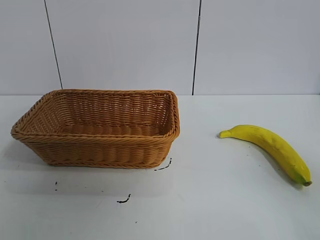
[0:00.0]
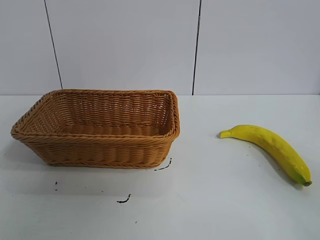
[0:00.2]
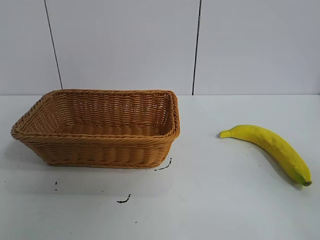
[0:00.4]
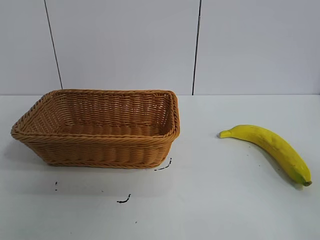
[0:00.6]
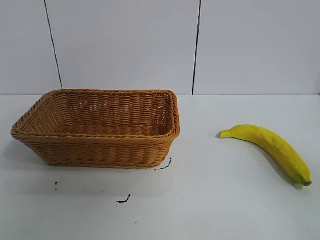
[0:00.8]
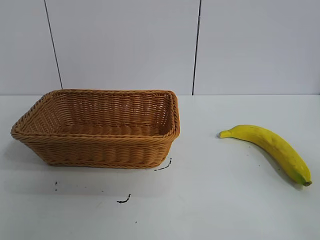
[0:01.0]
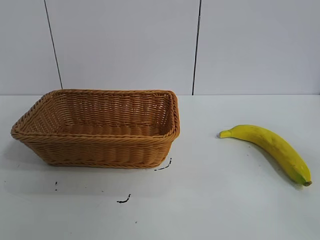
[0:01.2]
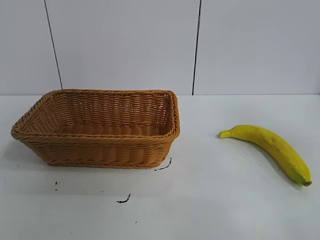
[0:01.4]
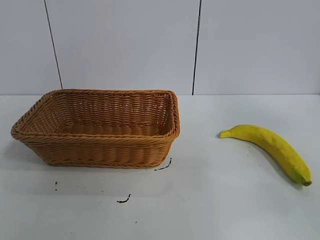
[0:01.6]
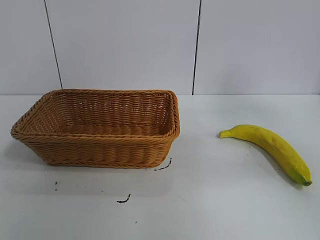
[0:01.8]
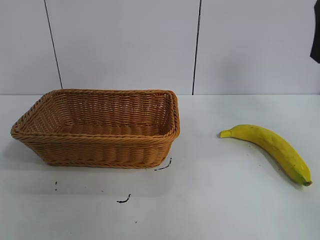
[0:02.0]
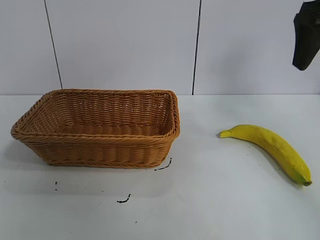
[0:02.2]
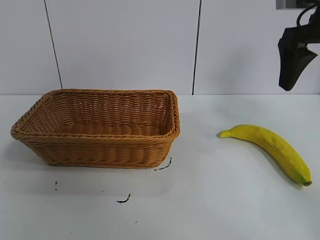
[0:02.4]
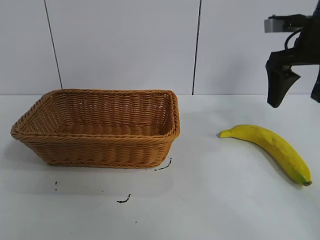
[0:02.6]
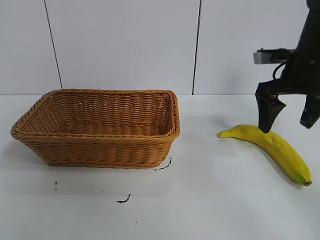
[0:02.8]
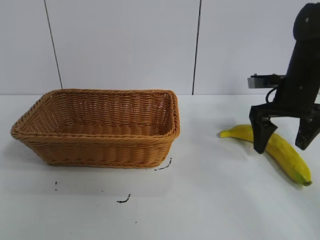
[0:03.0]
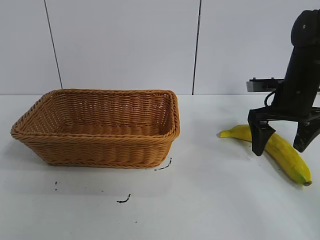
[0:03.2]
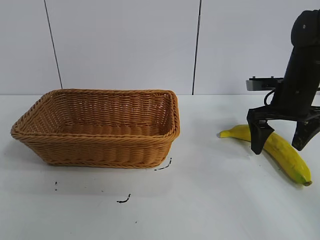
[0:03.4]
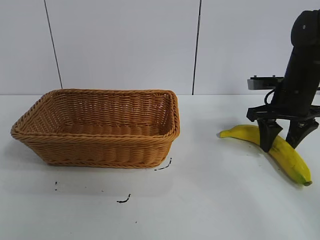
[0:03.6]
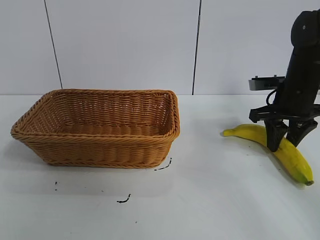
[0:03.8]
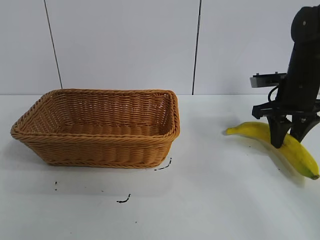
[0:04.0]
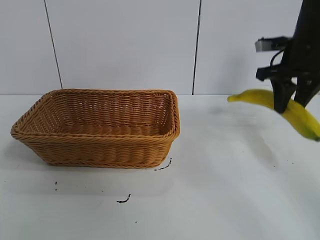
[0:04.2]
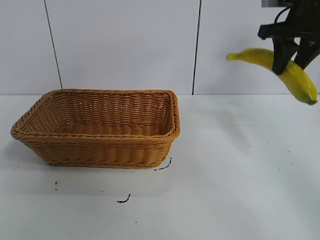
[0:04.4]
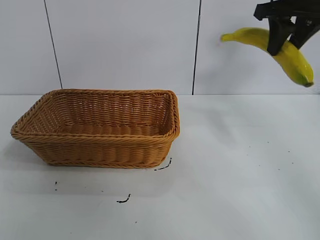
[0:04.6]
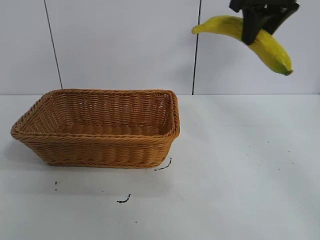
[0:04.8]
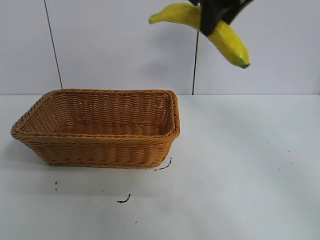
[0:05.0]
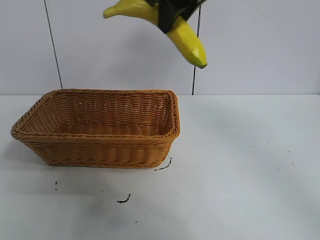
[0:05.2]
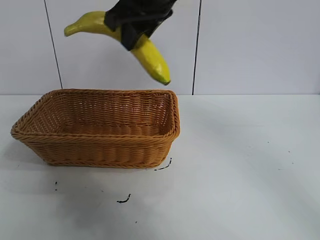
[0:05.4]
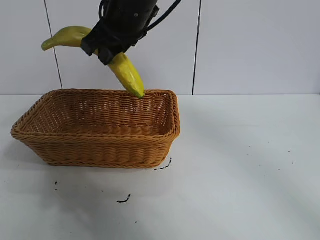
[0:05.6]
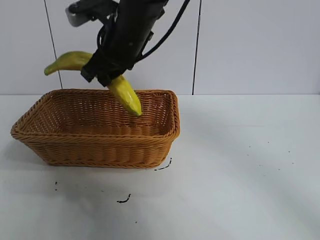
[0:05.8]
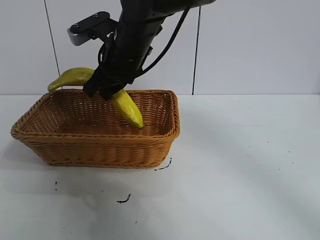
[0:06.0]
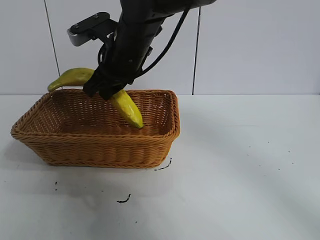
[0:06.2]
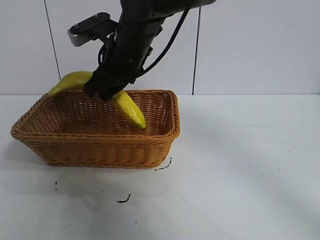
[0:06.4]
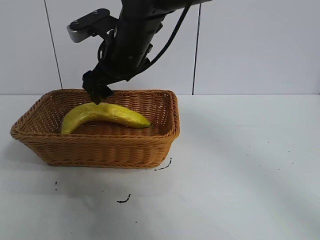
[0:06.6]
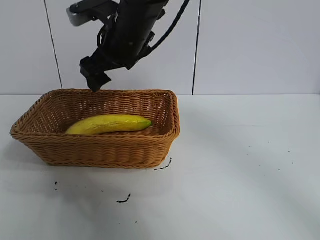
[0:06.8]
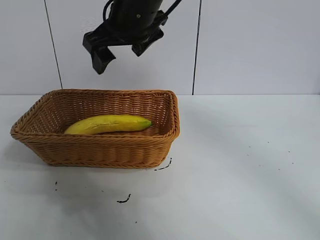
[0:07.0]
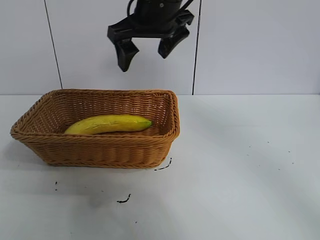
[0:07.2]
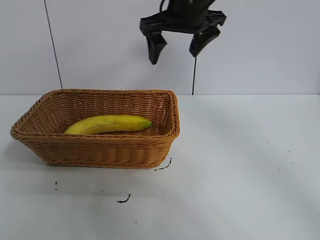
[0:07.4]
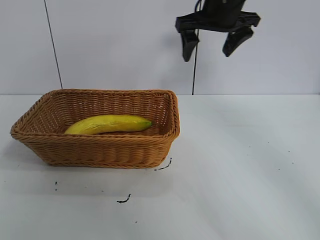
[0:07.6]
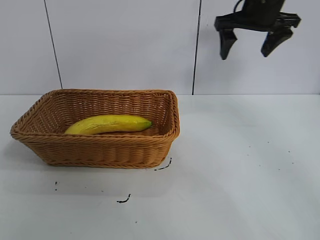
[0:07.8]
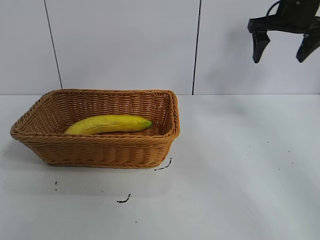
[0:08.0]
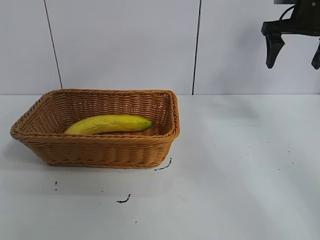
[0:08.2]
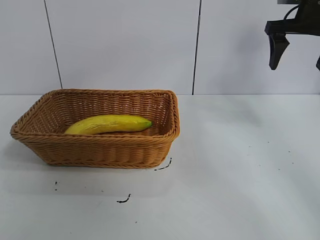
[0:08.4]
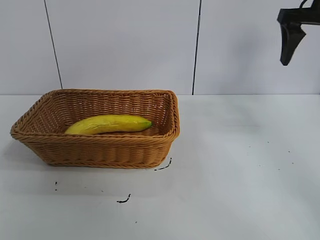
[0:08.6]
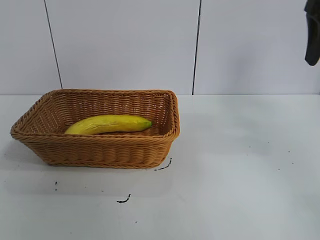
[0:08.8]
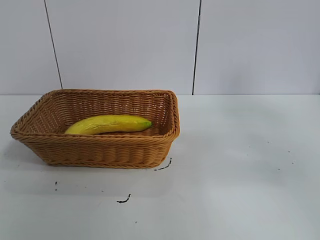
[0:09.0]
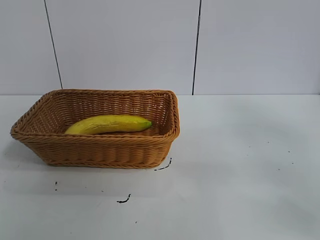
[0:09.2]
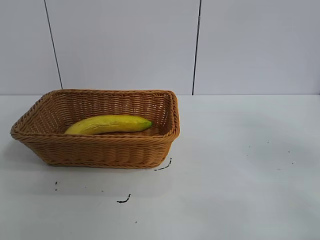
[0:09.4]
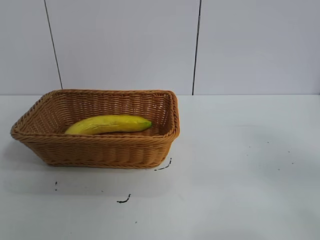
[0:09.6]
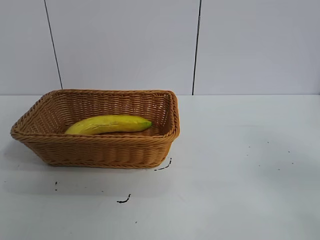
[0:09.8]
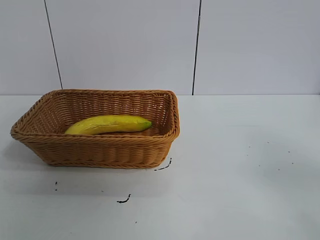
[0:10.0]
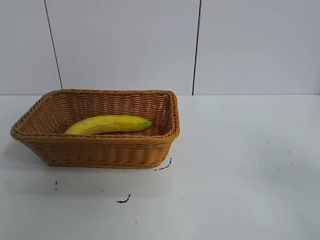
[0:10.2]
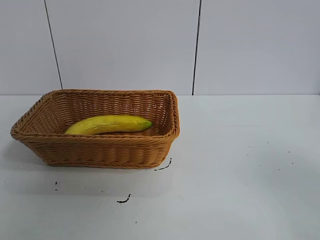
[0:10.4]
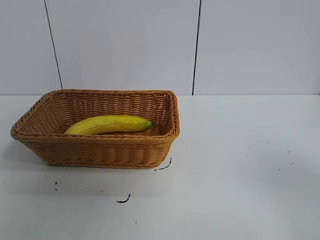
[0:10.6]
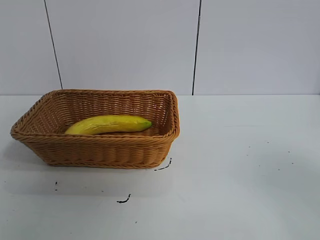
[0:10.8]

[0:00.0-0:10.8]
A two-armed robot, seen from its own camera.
Task of the whole recording: pick up the banana and put it into the basket.
Step, 0:01.0 to 0:03.8: Grasp the banana with right gripper.
Step, 0:04.0 to 0:06.6: Place the banana in the basket with right gripper.

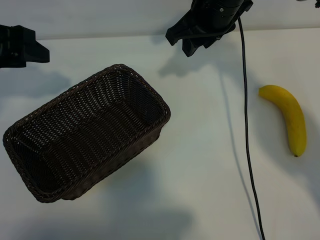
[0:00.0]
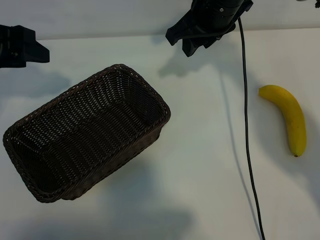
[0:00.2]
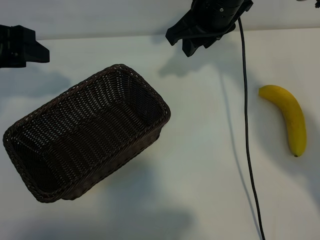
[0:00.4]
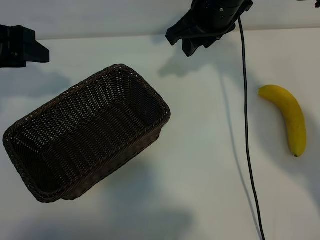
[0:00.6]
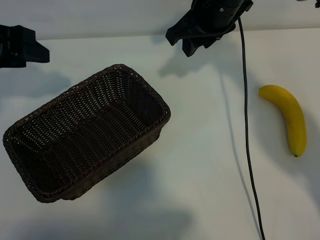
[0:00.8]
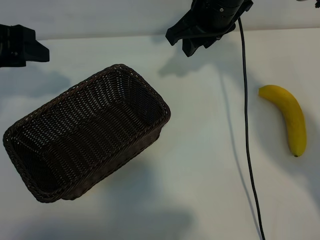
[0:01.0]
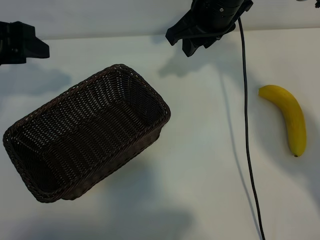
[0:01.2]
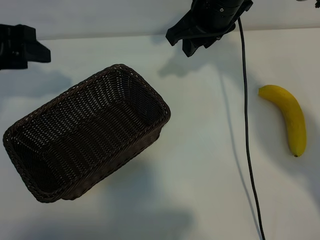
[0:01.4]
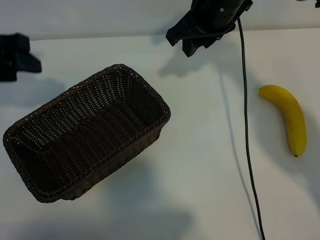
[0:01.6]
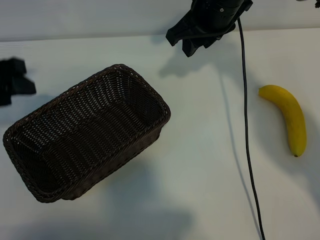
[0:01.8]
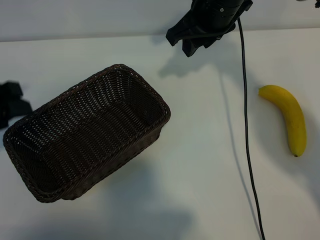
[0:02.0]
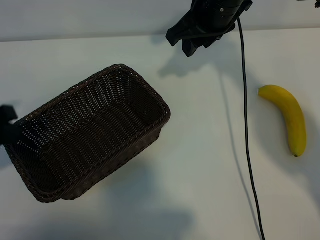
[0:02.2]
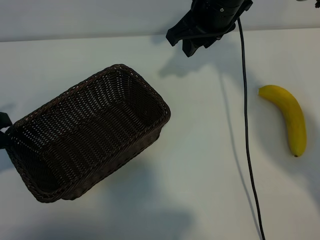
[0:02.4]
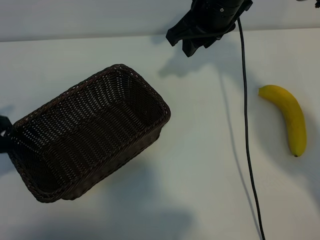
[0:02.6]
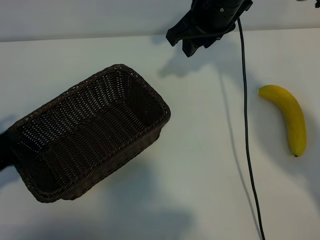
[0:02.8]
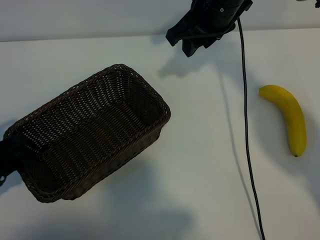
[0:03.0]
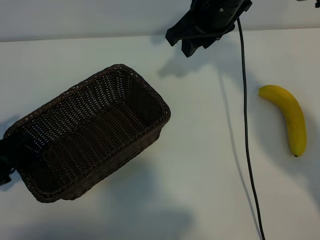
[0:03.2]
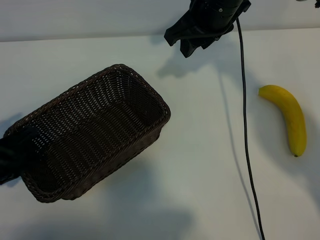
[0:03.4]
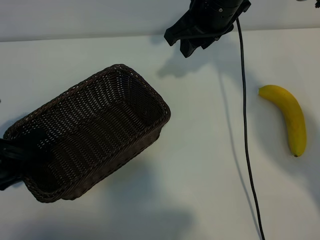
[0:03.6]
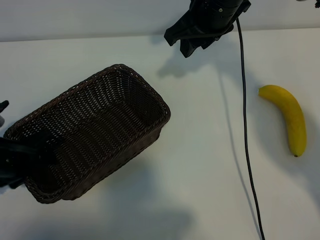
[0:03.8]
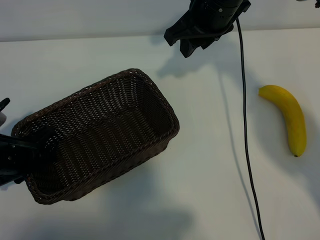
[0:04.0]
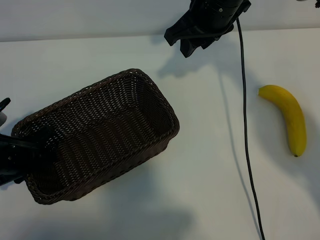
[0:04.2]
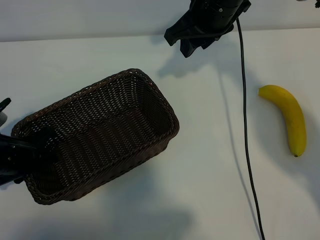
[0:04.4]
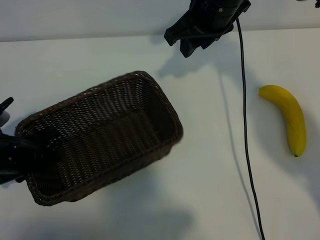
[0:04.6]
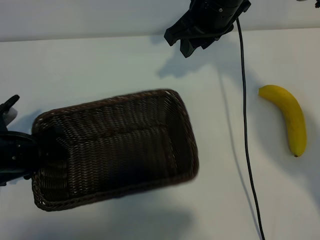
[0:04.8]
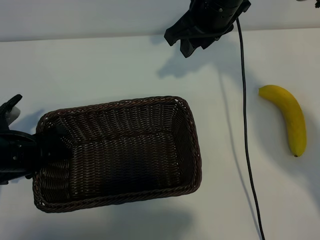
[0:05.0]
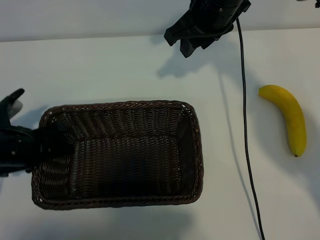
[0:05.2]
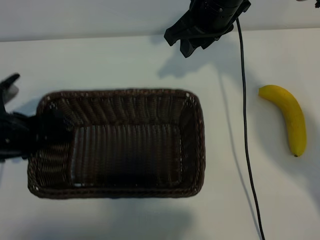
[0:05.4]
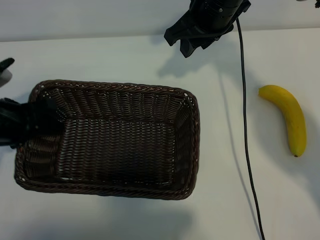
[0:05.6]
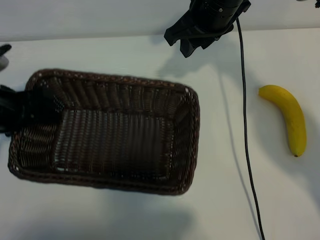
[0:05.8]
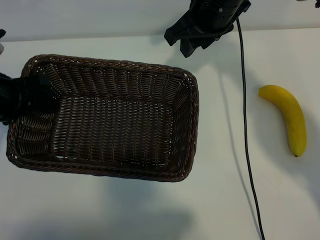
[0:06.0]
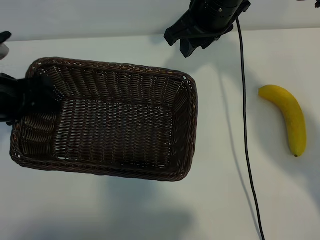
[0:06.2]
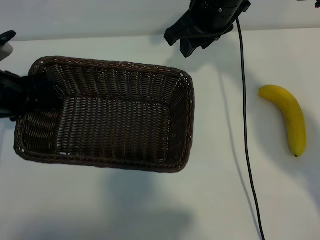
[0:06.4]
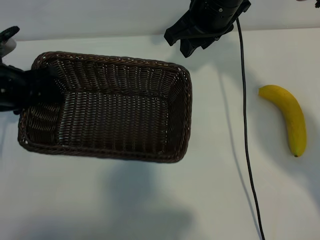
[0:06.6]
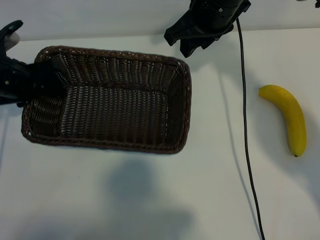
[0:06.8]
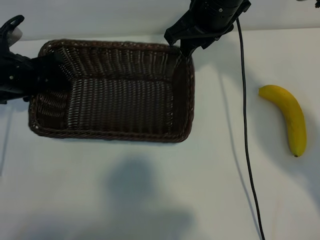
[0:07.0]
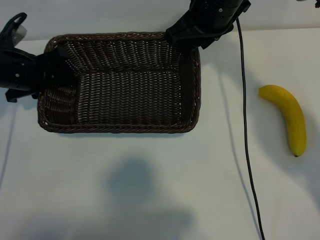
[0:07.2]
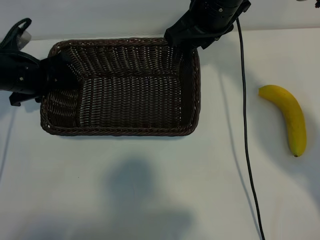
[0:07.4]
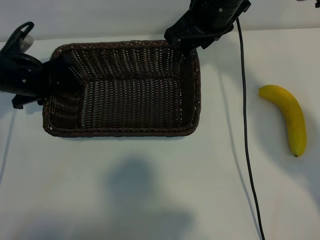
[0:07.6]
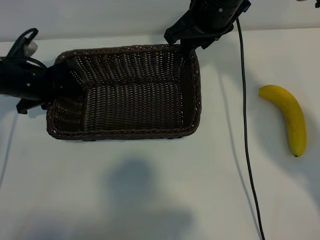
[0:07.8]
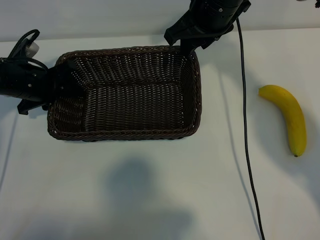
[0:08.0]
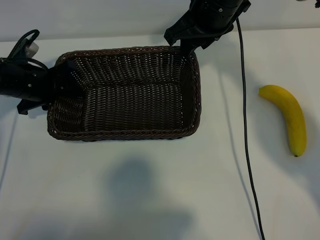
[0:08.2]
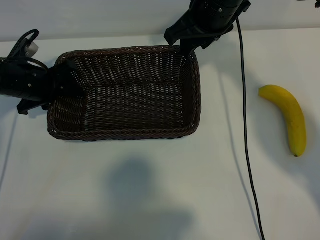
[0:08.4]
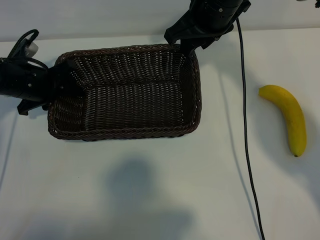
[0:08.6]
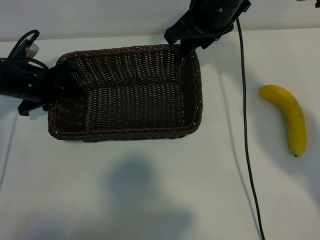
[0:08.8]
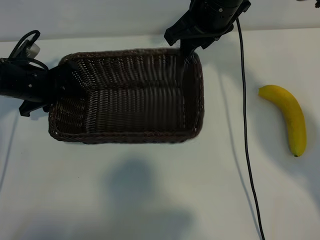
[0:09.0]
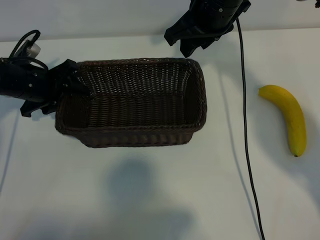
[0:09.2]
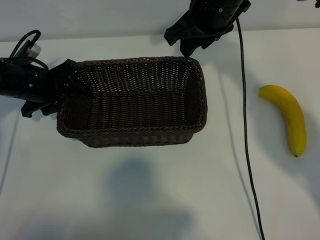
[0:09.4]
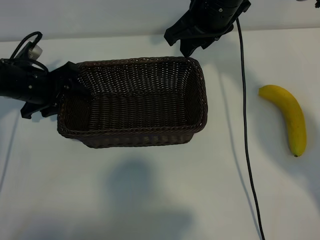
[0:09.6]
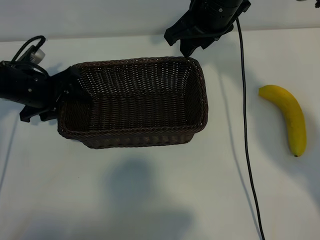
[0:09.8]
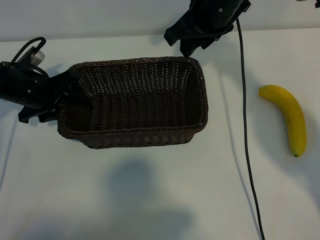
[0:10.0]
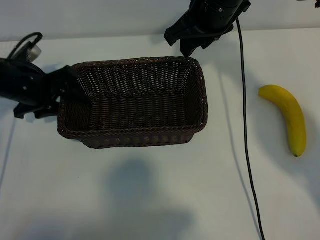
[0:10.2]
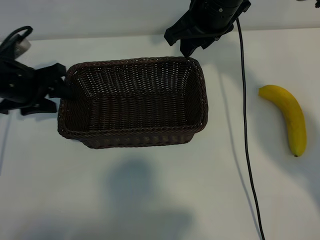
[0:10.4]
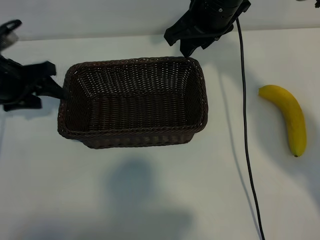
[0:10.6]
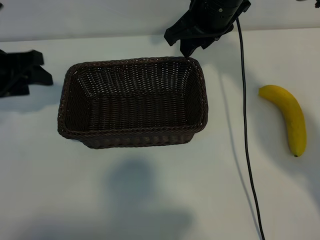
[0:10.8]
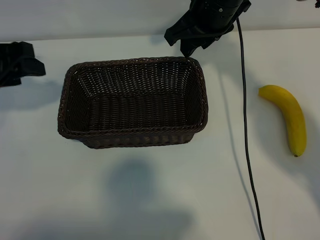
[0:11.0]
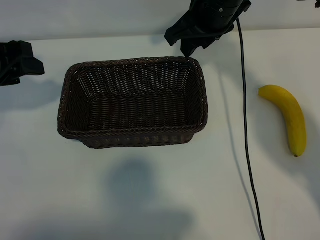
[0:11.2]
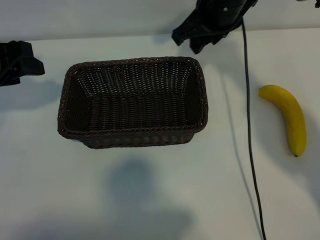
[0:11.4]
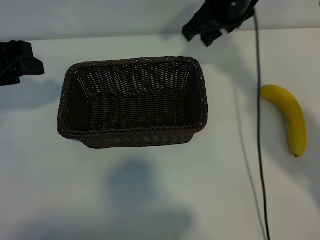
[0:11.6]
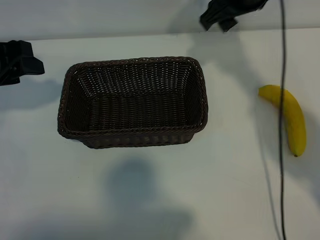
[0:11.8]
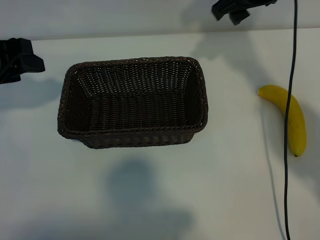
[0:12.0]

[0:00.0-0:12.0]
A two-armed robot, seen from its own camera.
Task of the whole recording: pick up the banana and put it into the basket.
Step, 0:01.0 to 0:04.6: Grasp the basket with the left gripper.
Step, 0:04.8 to 0:09.8: Place the basket in the center of the table with the left gripper.
